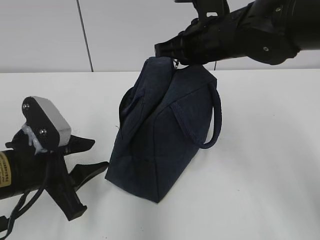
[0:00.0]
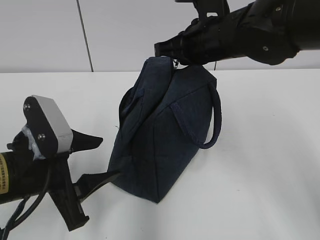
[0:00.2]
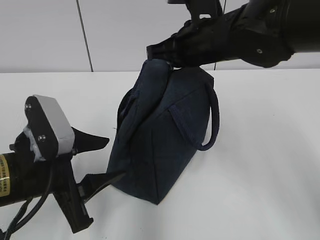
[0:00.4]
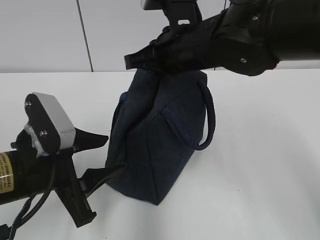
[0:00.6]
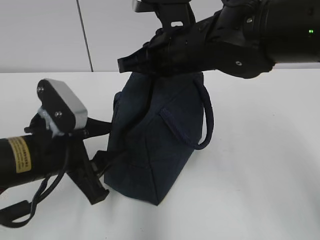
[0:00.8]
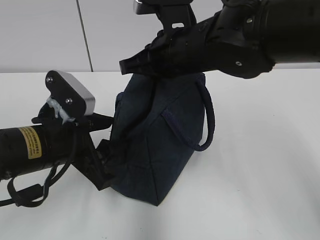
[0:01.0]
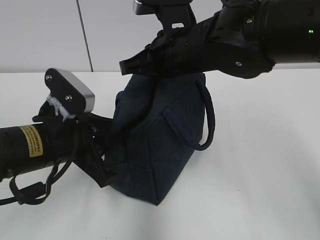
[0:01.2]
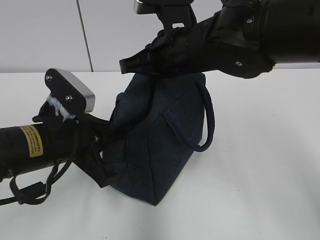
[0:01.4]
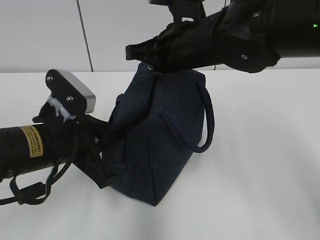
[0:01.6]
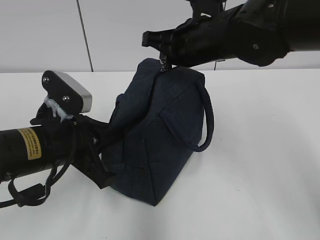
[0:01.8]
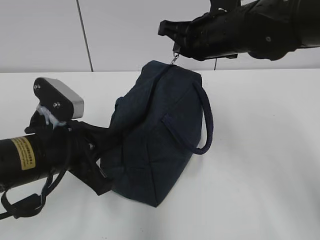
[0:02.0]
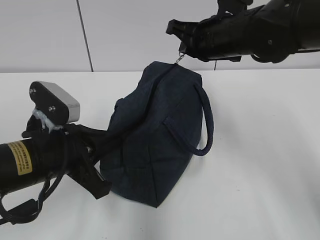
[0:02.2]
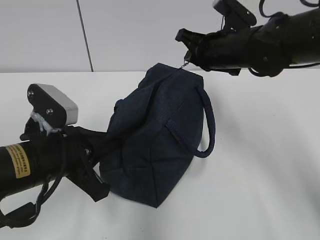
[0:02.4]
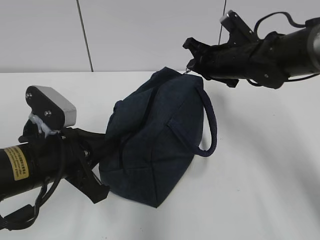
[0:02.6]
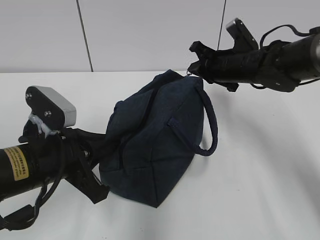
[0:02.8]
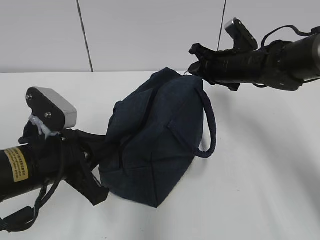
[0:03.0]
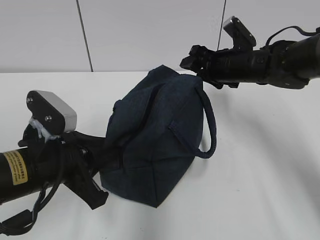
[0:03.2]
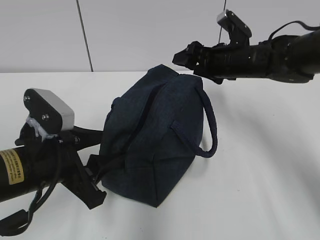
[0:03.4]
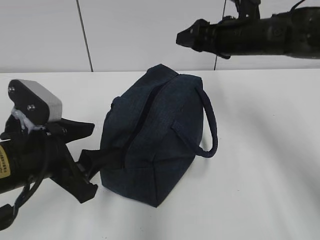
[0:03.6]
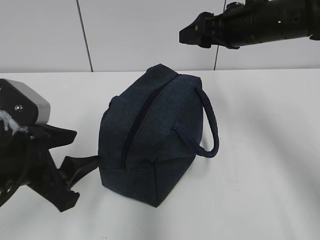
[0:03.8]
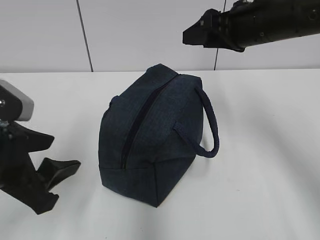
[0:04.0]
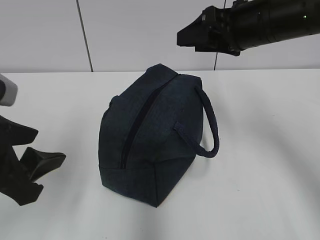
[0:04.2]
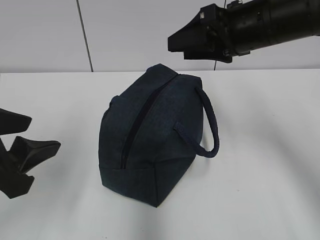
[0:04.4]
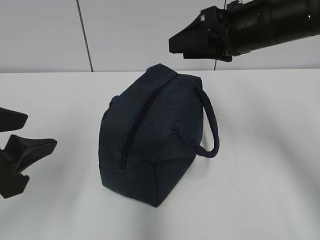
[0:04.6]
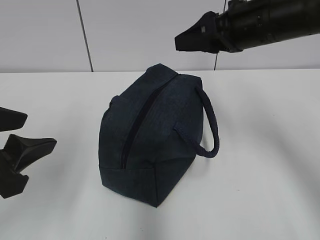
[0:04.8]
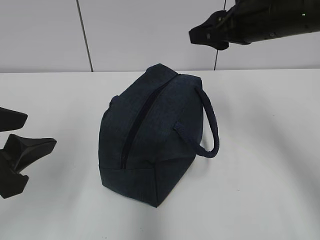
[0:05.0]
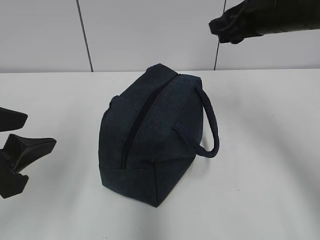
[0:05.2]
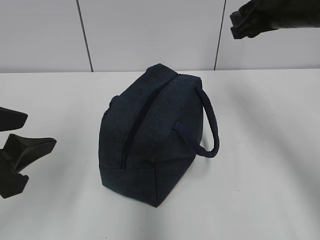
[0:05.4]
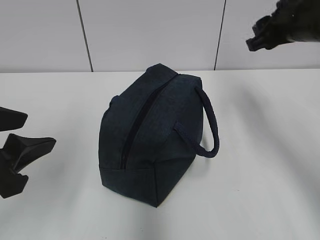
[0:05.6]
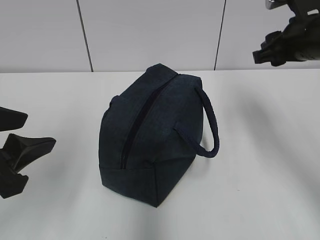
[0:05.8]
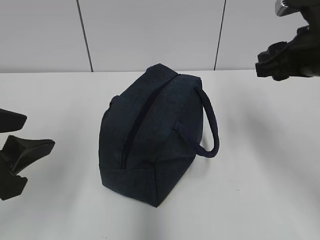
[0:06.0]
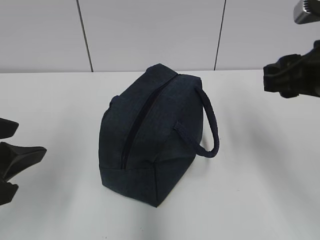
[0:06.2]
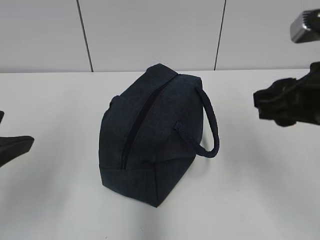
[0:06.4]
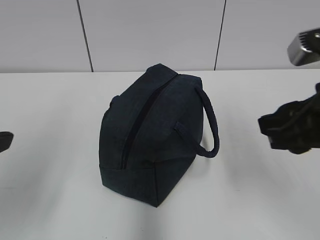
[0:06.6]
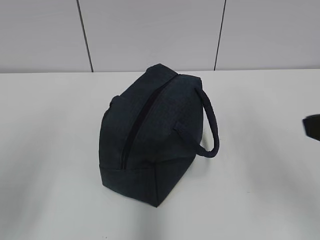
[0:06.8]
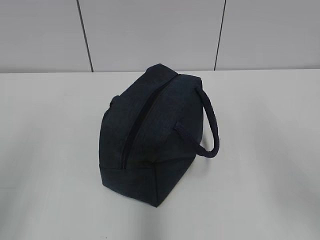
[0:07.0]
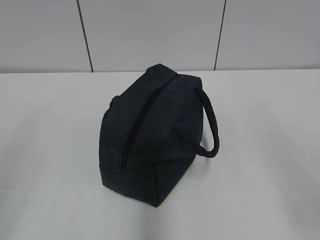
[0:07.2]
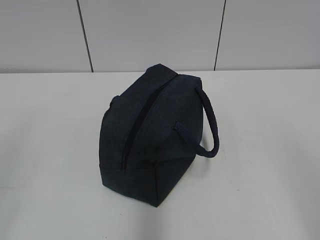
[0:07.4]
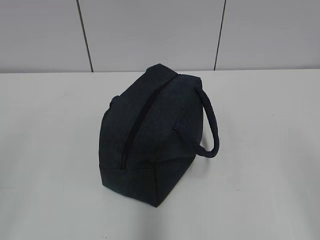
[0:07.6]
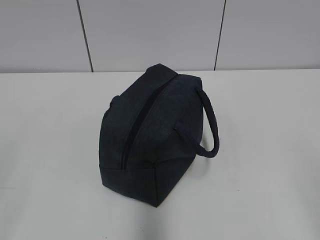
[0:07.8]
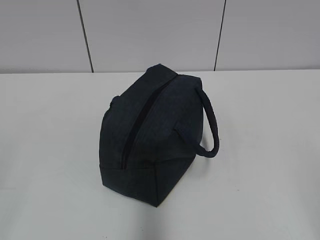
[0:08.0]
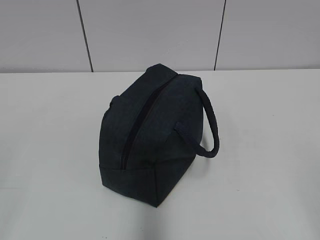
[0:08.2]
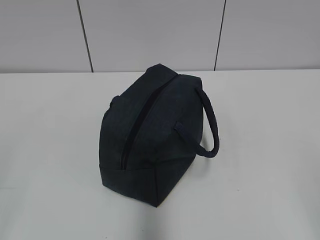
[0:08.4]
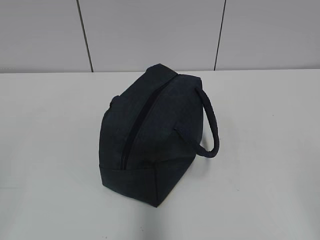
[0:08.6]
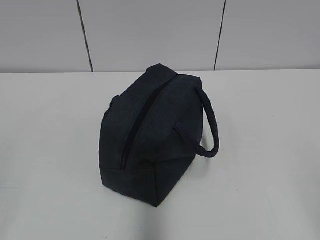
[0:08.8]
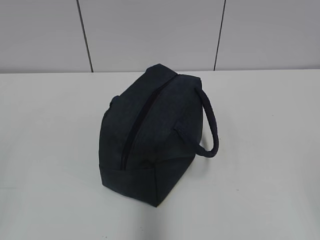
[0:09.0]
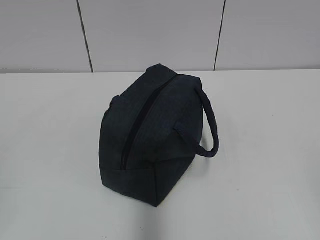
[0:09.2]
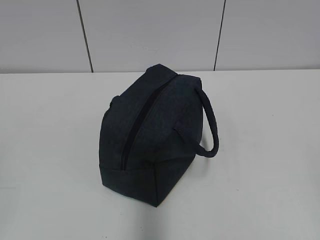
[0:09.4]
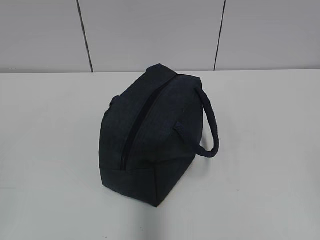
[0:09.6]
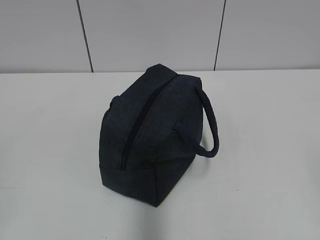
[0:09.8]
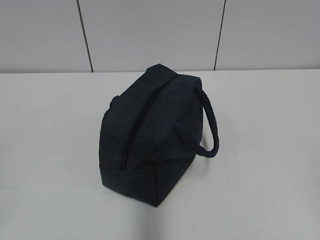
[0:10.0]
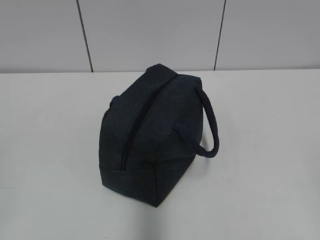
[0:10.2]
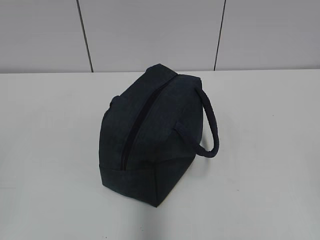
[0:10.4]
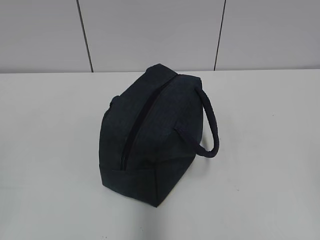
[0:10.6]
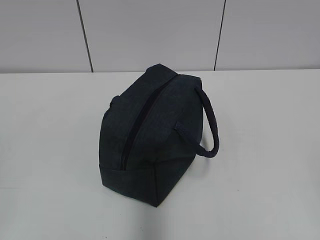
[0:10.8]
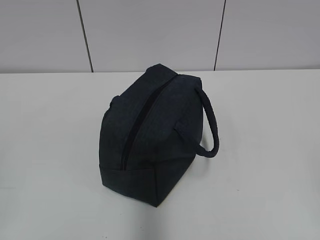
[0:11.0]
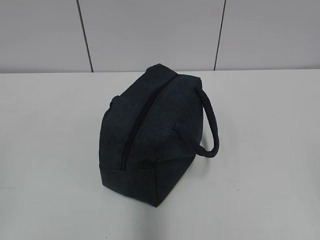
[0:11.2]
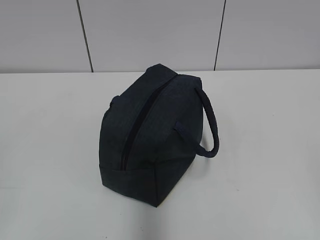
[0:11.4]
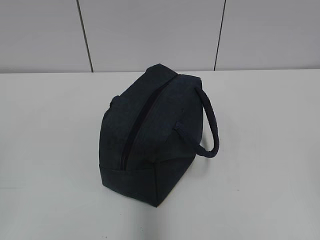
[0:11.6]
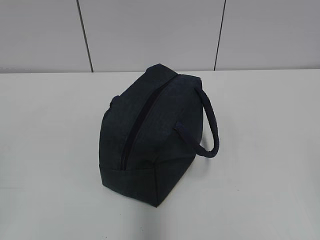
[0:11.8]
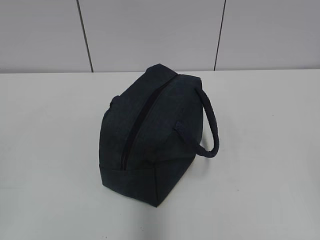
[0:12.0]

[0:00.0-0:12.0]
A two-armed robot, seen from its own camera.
Step, 0:00.0 to 0:02.8: Pull the zipper with your right hand.
0:00.0 to 0:01.6: The left gripper closes up.
0:01.6 to 0:03.0: The right gripper moves to the right, forward and downward, roughly 15 cm.
0:03.0 to 0:04.4: The right gripper moves upward and backward, roughly 15 cm, and opens; the left gripper goes about 10 cm upward and to the left, and opens.
0:04.4 to 0:06.0: The right gripper heads to the right, covering roughly 5 cm.
0:06.0 to 0:07.6: The right gripper travels backward by approximately 30 cm, while the left gripper moves backward and to the left, about 15 cm.
0:10.4 to 0:12.0: Neither gripper changes place.

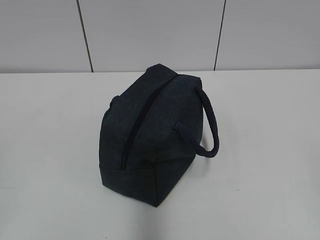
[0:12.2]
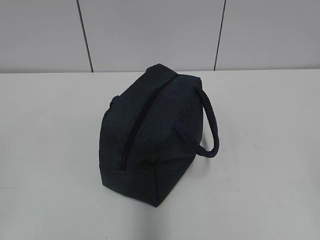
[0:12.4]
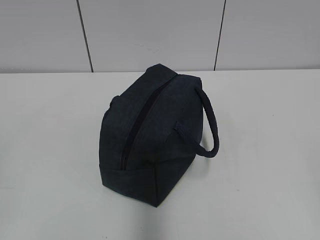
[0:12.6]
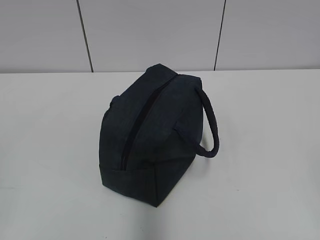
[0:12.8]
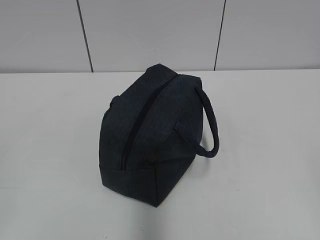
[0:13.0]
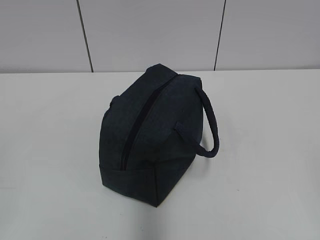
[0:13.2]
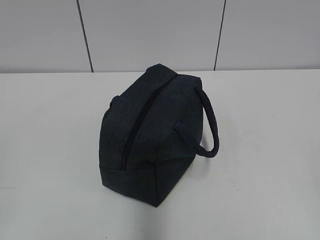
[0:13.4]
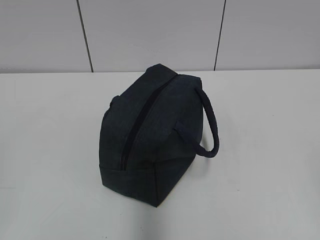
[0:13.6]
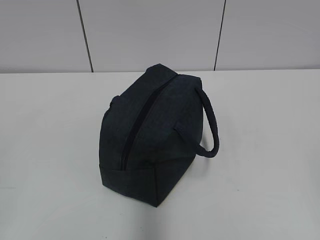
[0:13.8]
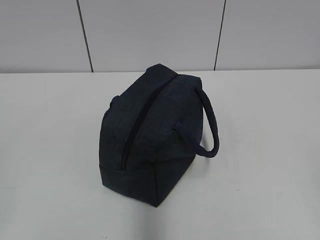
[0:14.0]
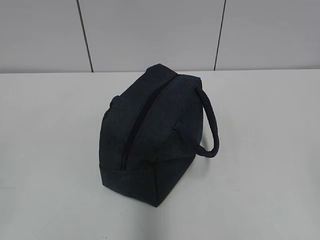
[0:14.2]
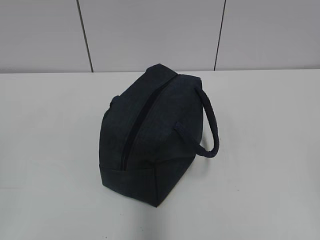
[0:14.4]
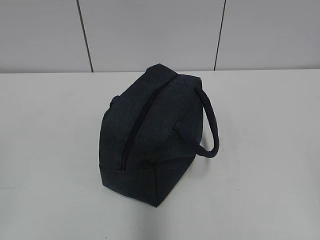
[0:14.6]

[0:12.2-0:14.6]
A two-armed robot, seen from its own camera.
0:12.2 to 0:14.6: The two grippers keep their place.

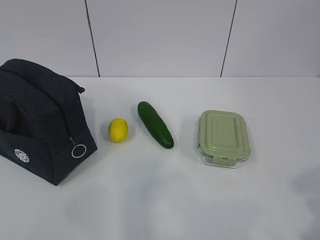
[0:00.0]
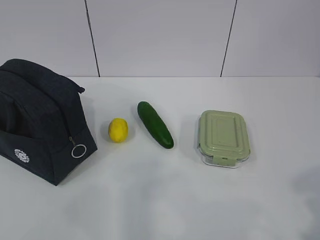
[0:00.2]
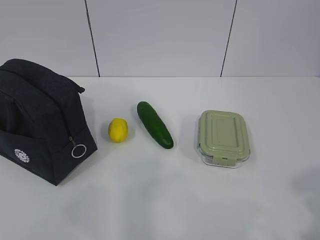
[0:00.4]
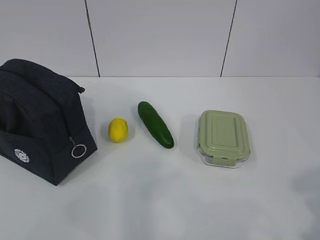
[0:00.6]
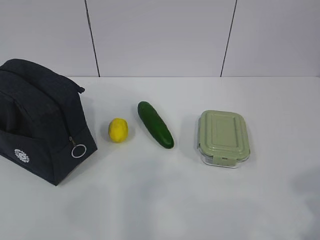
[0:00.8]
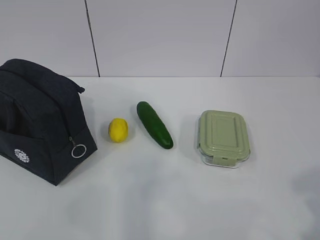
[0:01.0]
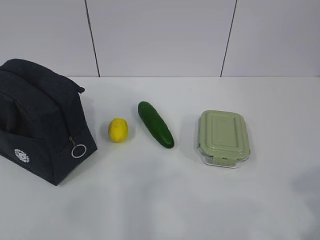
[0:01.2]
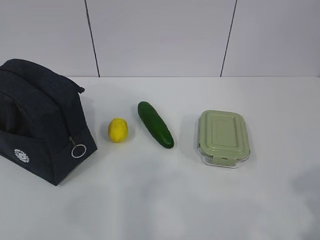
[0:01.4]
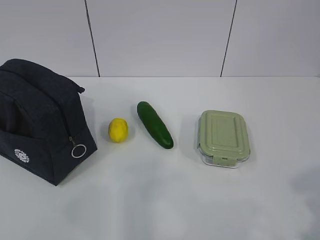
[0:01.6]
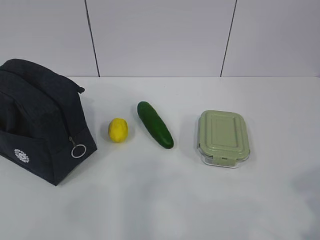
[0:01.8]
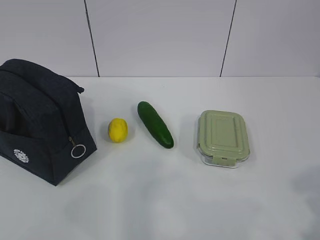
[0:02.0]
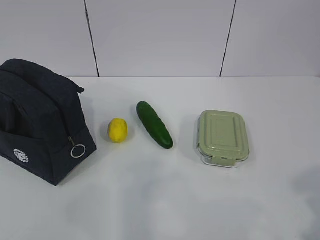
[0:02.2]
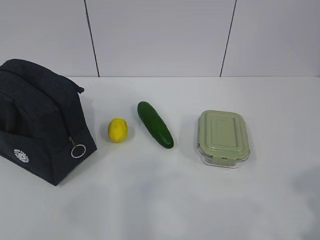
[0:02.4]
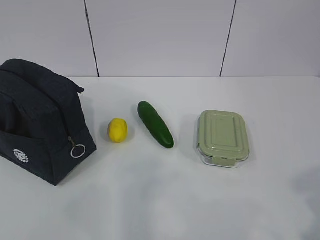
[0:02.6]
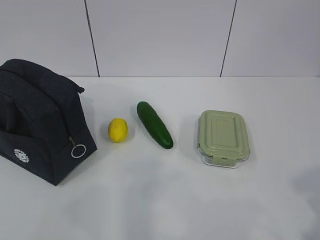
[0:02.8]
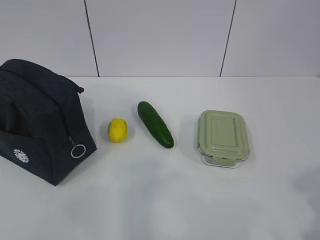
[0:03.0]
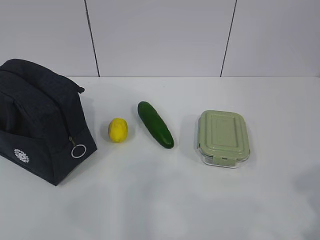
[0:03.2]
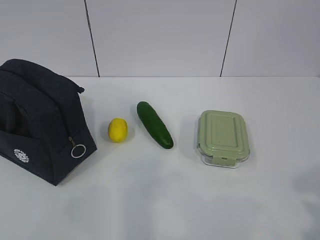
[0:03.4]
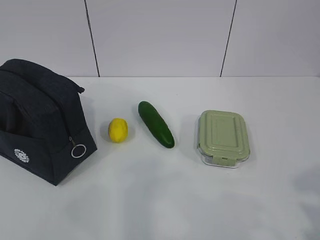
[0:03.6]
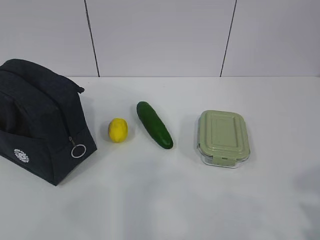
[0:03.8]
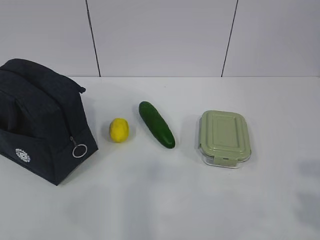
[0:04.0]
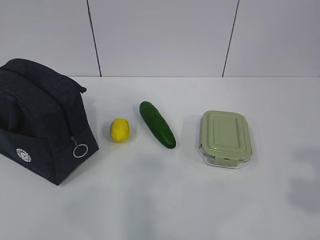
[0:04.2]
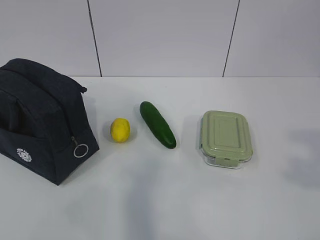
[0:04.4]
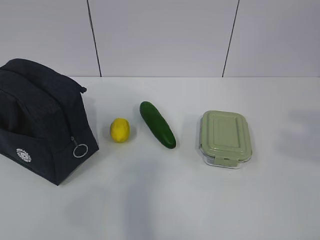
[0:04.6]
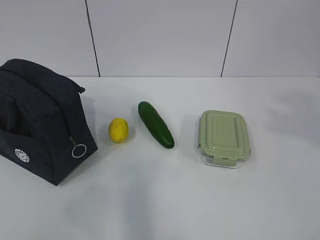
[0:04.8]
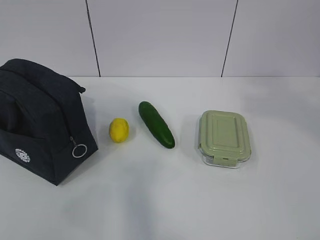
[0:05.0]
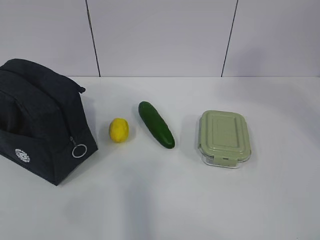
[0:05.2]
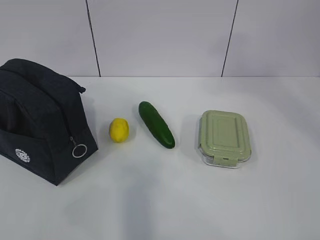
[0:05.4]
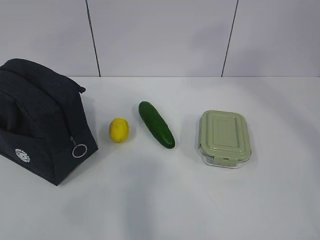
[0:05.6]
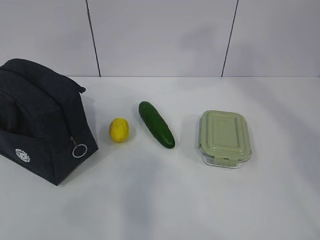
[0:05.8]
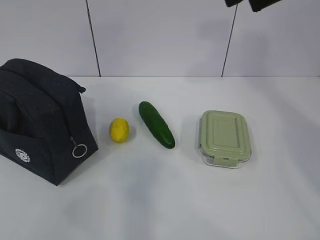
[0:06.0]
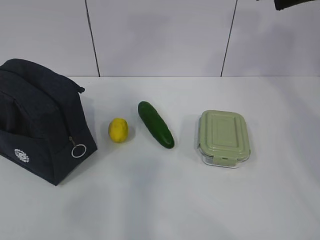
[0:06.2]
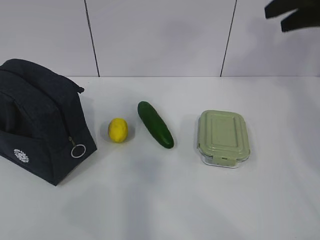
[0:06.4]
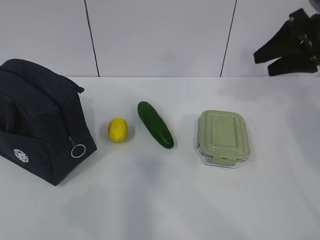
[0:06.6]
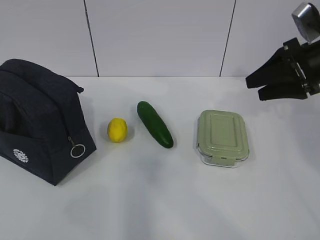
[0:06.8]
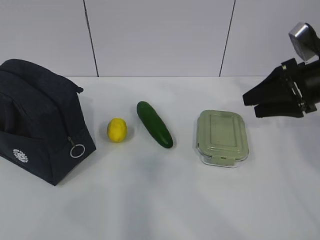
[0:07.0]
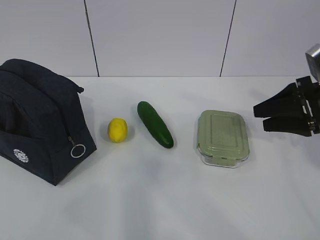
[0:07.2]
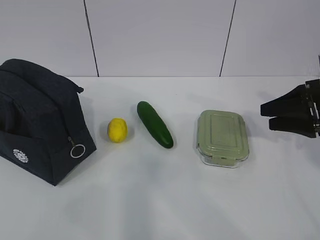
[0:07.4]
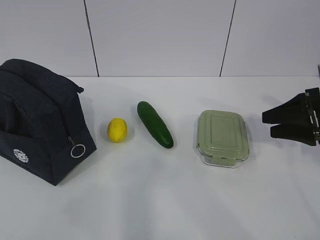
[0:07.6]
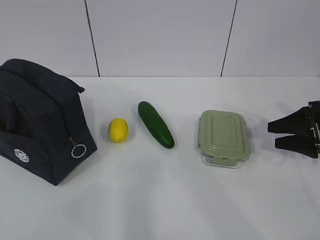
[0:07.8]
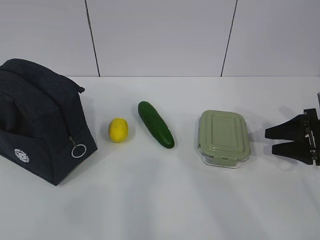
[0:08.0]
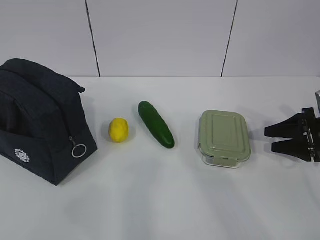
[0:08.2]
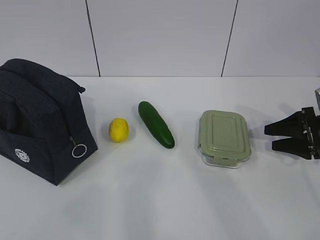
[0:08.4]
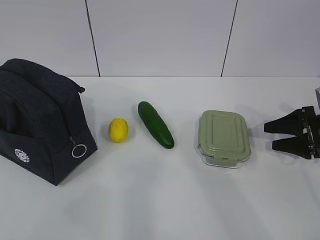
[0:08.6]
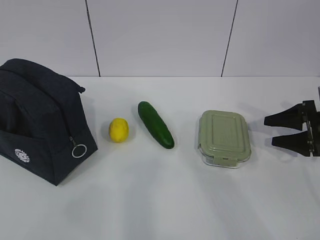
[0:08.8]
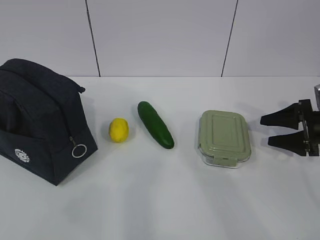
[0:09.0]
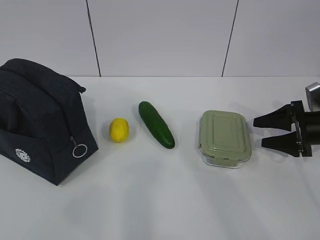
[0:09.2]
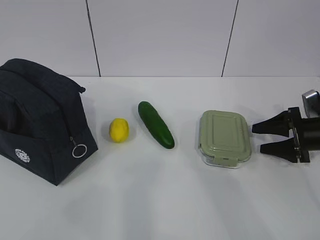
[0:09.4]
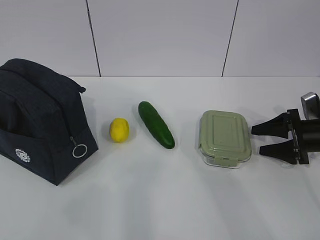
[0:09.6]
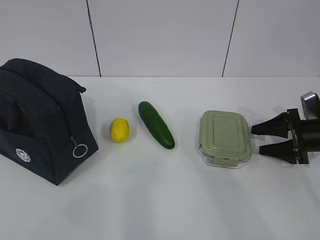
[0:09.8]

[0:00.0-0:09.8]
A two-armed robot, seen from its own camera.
0:01.4 to 0:02.8: Both grippers stay about where they are.
0:02.8 to 0:04.2: The right gripper opens its fingers.
0:05.6 to 0:07.0: The right gripper shifts approximately 30 cm downward, forward and to the right.
0:07.0 to 0:08.4: The right gripper shifts some 15 cm downward and to the right.
0:08.4 to 0:09.8: The grippers stay close to where they were, moving slightly.
